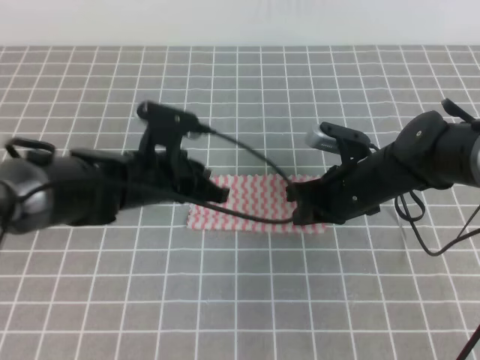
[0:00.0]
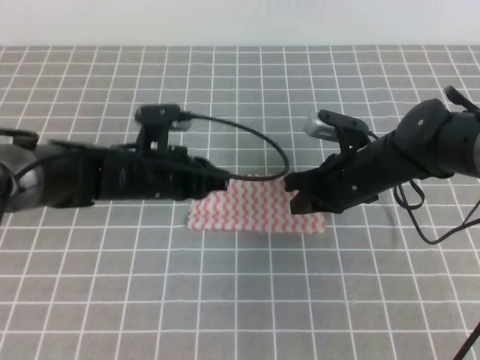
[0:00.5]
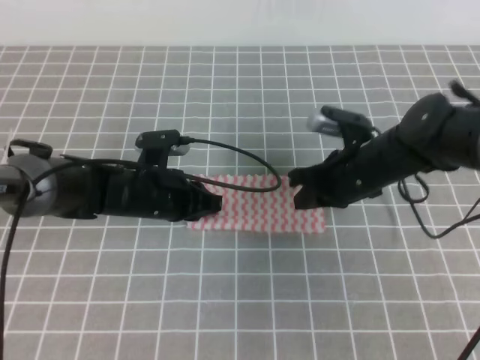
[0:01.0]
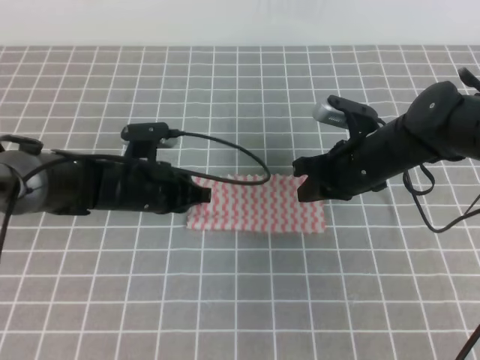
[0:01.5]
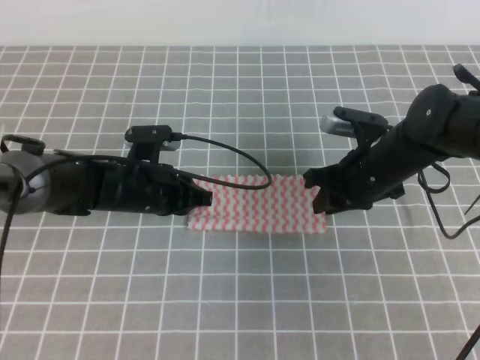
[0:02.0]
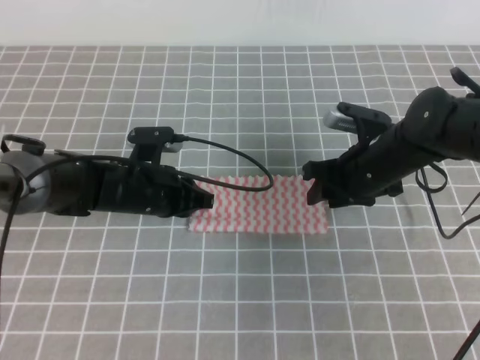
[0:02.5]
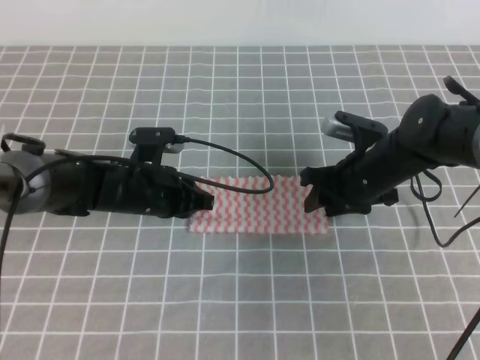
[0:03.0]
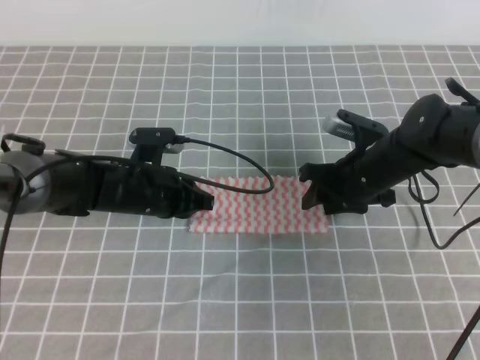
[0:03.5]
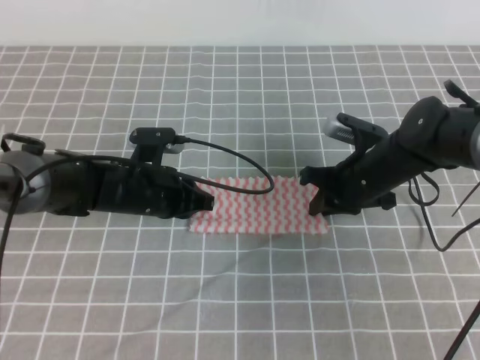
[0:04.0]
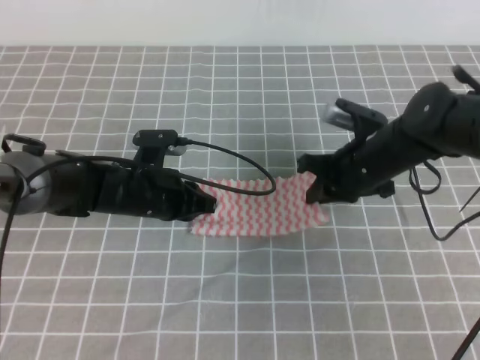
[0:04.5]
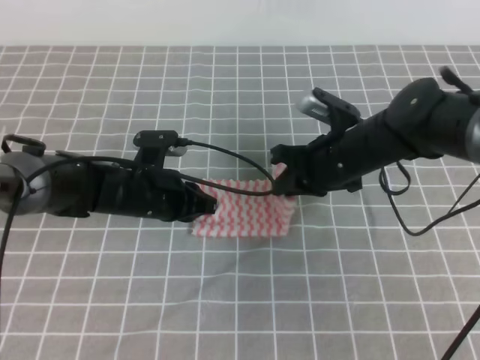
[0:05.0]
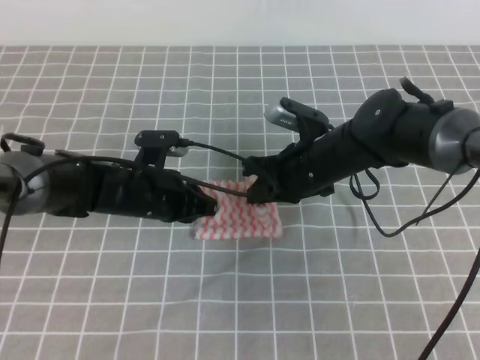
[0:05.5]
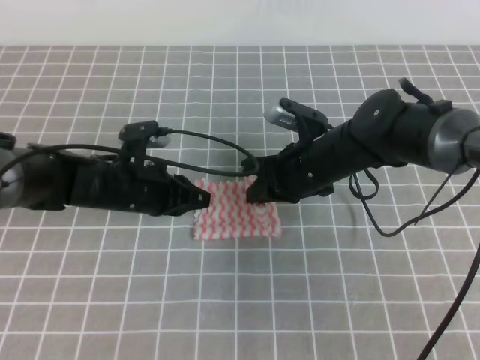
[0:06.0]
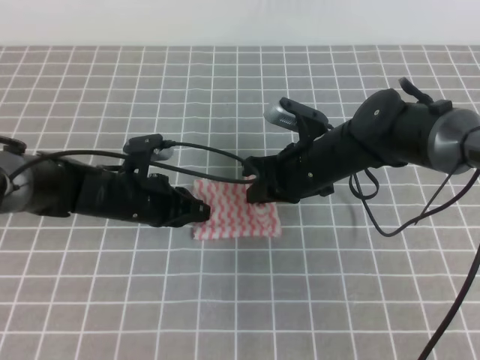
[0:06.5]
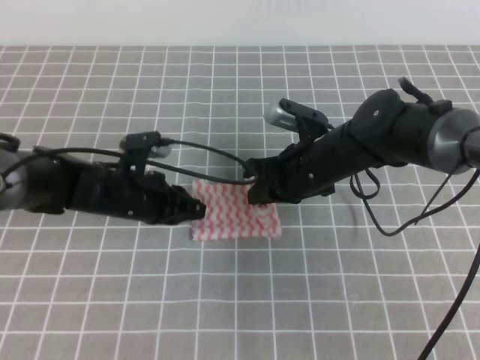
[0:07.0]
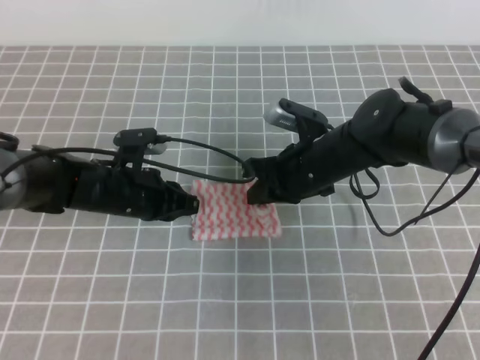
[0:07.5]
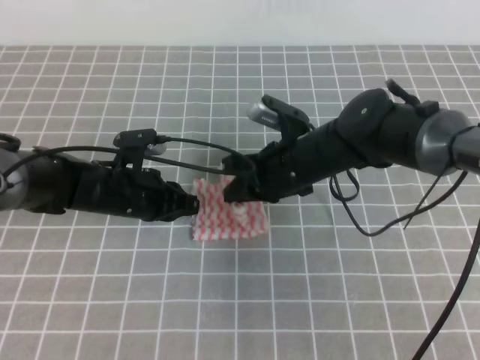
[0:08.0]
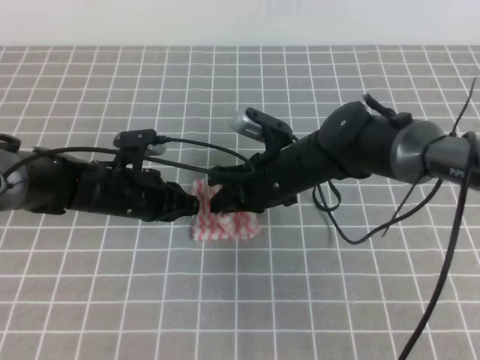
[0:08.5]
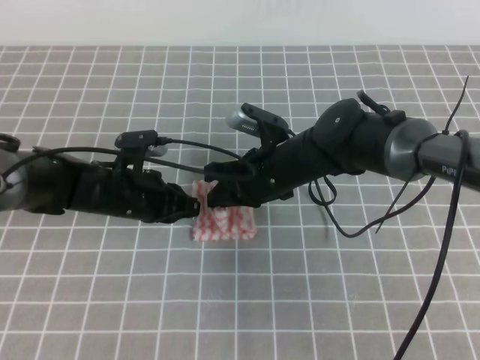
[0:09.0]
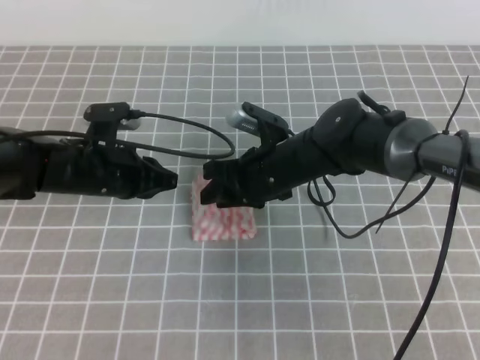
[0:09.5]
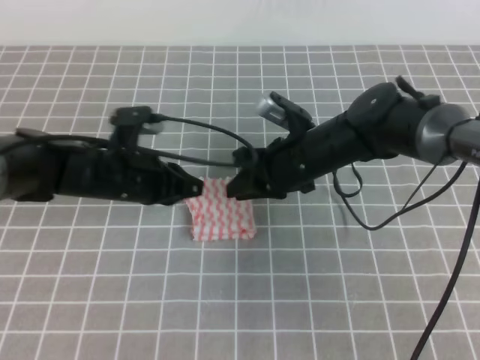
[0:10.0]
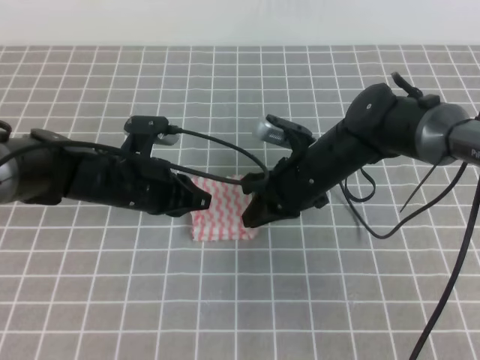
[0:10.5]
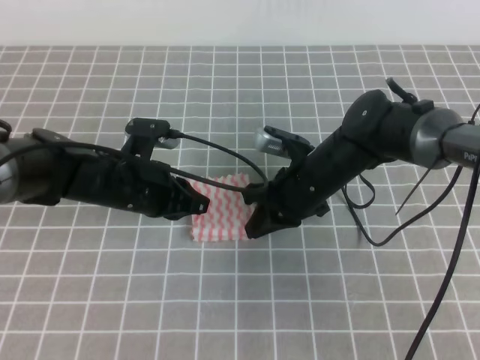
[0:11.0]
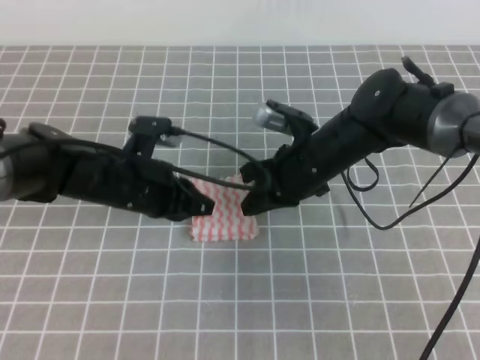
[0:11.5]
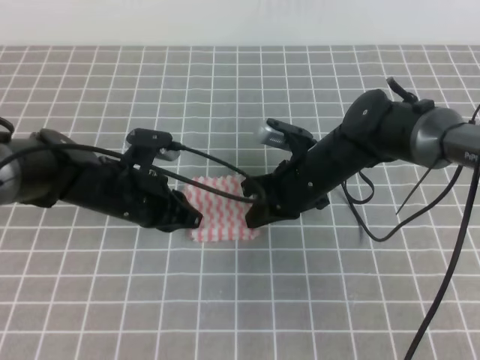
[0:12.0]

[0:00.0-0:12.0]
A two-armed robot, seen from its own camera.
0:00.0 to 0:02.0: The left gripper changes place by approximately 5 cm; the right gripper opens up.
0:02.0 to 0:04.0: The right gripper closes.
0:04.0 to 0:06.0: The right gripper travels to the left by about 5 cm.
0:06.0 to 0:08.0: There are only small adjustments of the grippers.
0:08.0 to 0:10.0: The right gripper opens its fingers.
0:10.0 to 0:12.0: The right gripper closes its fingers.

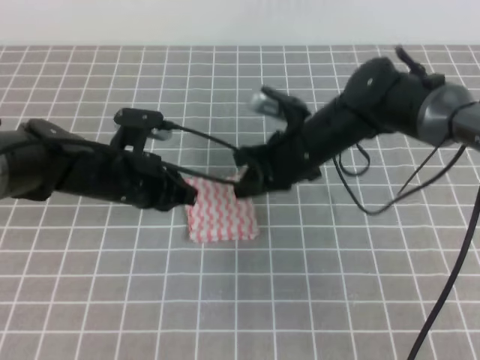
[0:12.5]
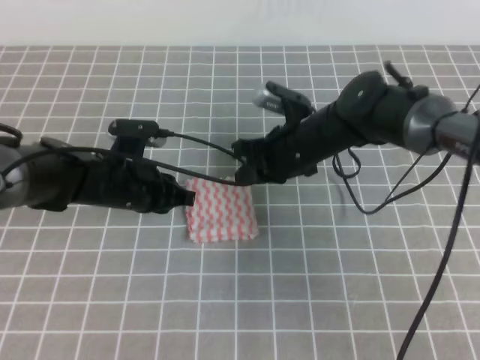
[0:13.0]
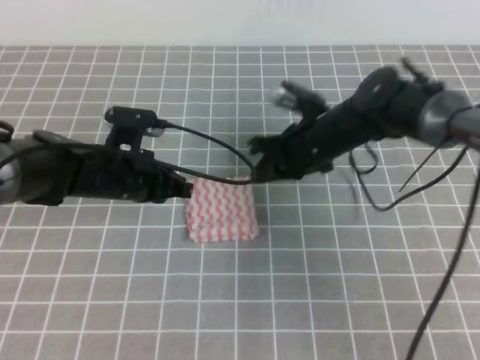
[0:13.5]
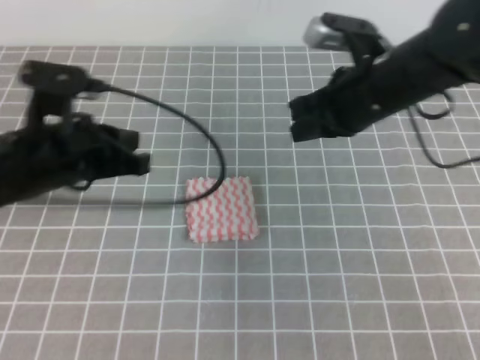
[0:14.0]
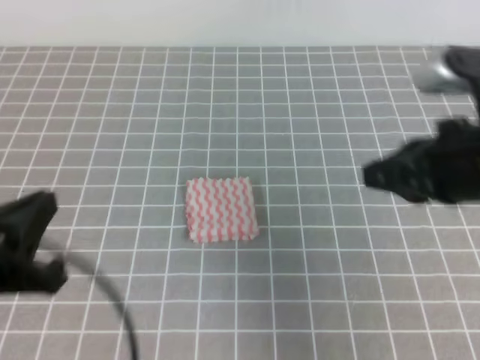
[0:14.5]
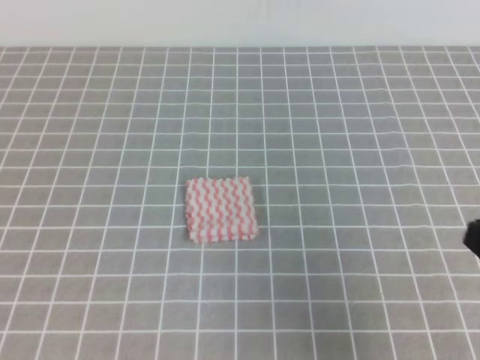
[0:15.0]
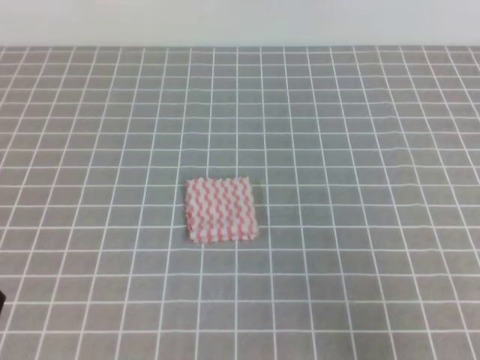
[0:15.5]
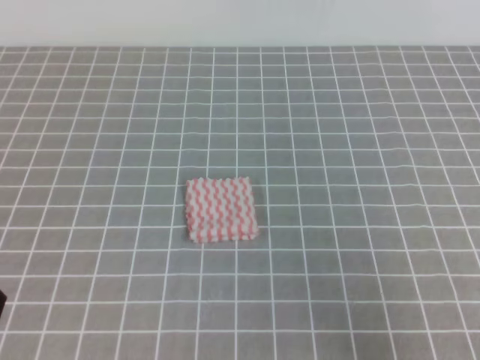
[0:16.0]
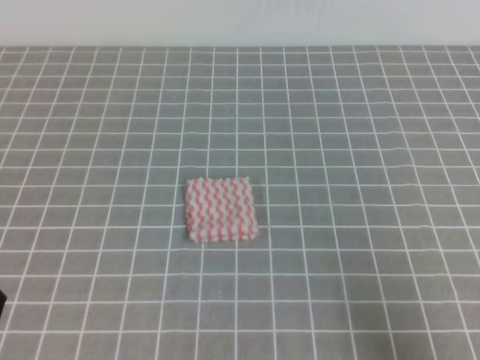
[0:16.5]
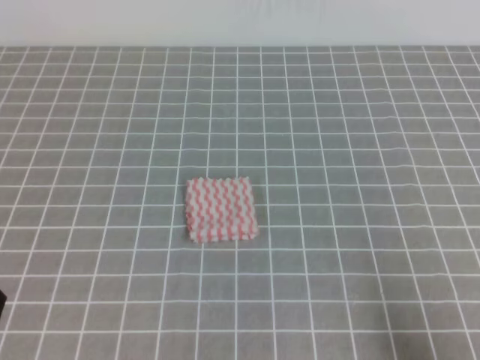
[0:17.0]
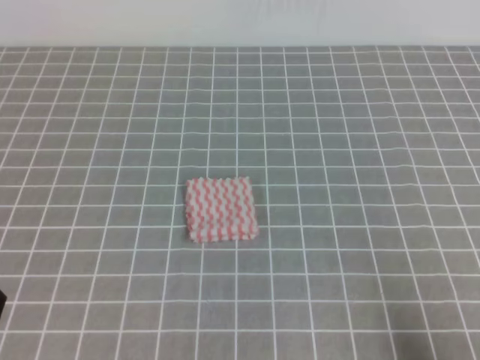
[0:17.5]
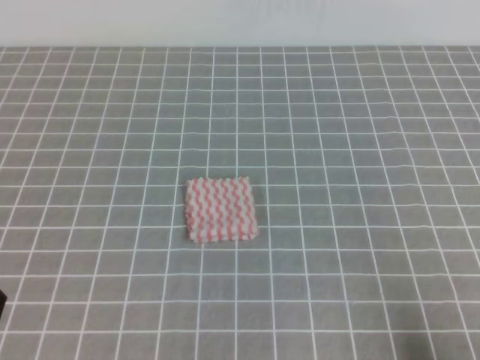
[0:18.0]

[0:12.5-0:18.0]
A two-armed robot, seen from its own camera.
Step, 0:12.5 to 0:18.0: Fold the towel.
0:12.5 to 0:14.5: The right gripper moves backward, upward and to the right, some 25 cm, while the left gripper heads backward, upward and to the left, covering some 25 cm.
0:14.5 to 0:16.0: The right gripper moves backward, to the right and downward, about 15 cm. Meanwhile the left gripper is displaced backward and downward by about 10 cm.
0:16.0 to 0:18.0: The right gripper is displaced downward by about 10 cm.
